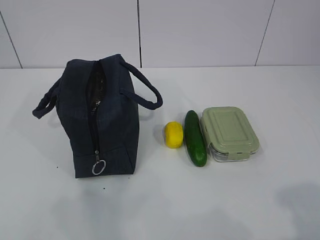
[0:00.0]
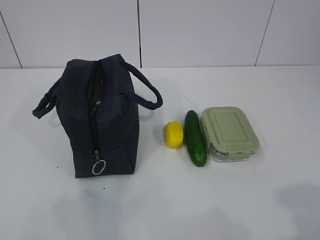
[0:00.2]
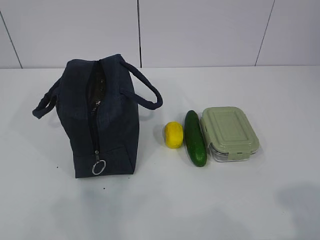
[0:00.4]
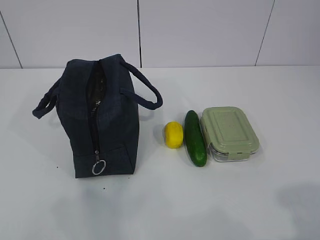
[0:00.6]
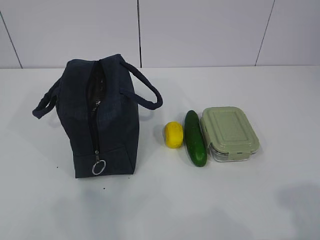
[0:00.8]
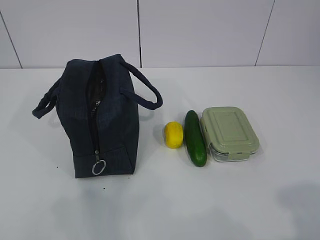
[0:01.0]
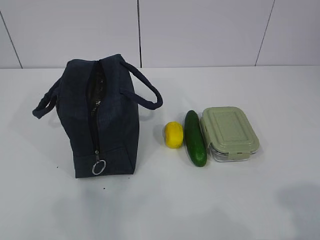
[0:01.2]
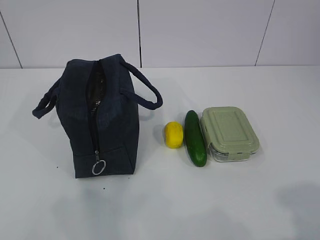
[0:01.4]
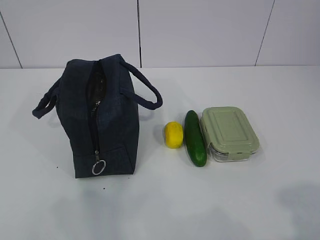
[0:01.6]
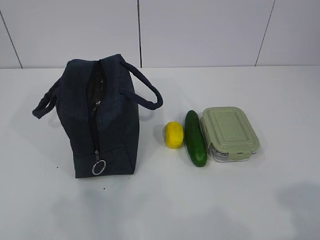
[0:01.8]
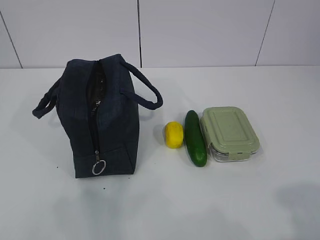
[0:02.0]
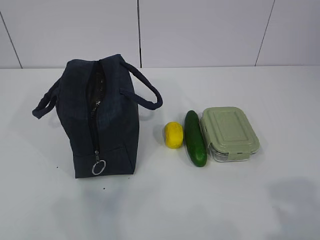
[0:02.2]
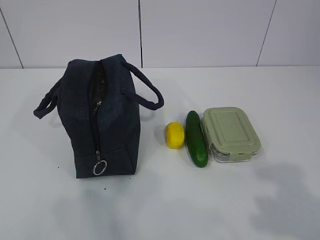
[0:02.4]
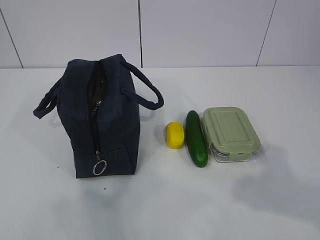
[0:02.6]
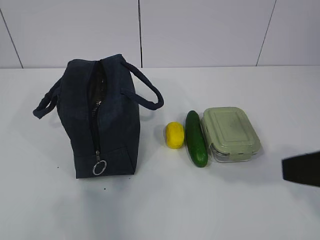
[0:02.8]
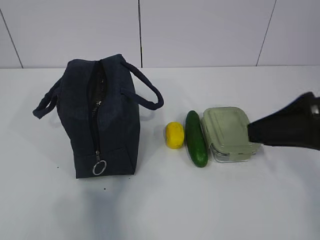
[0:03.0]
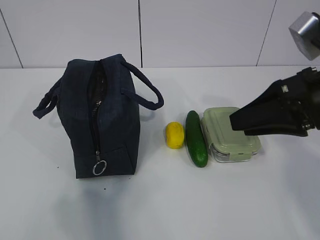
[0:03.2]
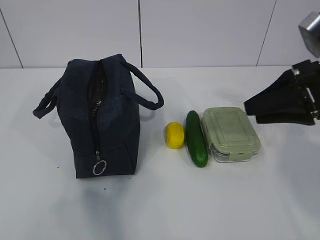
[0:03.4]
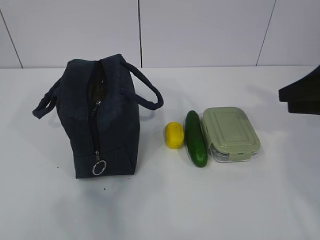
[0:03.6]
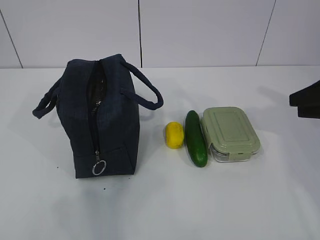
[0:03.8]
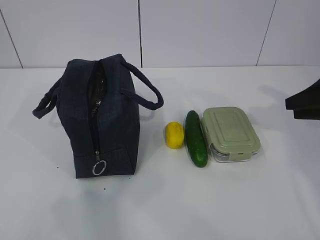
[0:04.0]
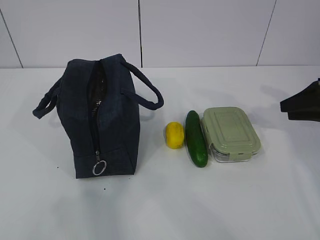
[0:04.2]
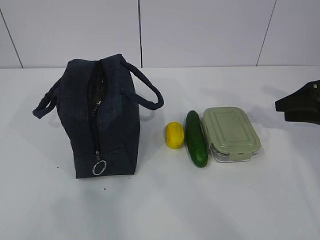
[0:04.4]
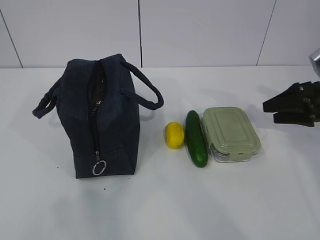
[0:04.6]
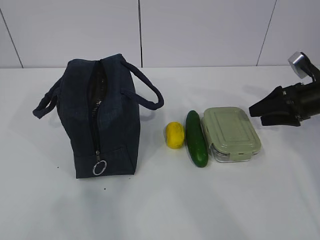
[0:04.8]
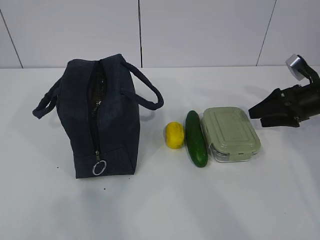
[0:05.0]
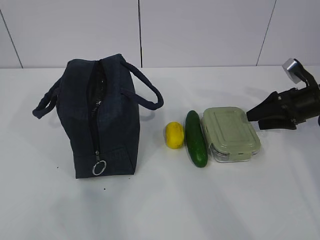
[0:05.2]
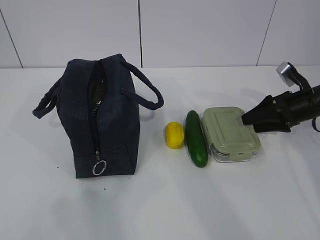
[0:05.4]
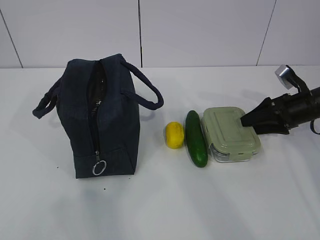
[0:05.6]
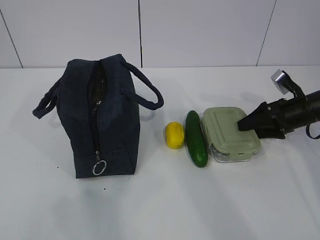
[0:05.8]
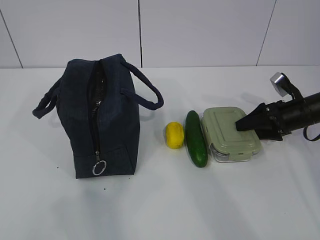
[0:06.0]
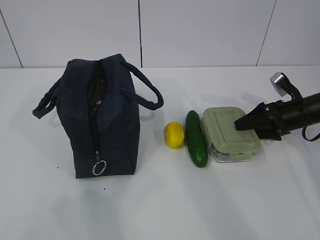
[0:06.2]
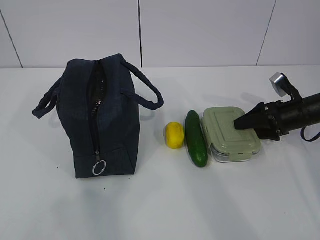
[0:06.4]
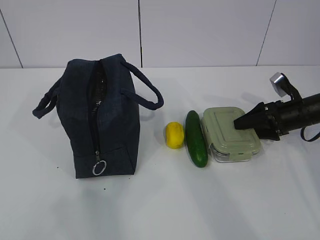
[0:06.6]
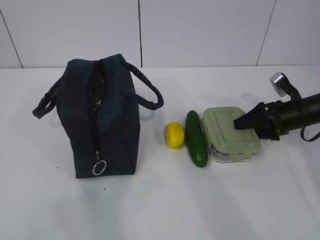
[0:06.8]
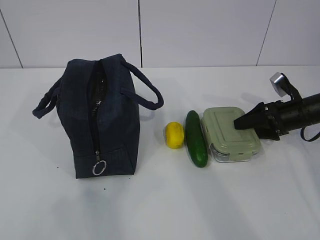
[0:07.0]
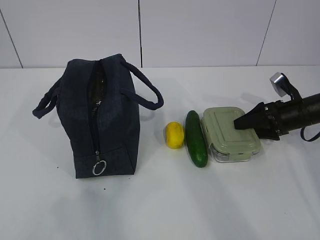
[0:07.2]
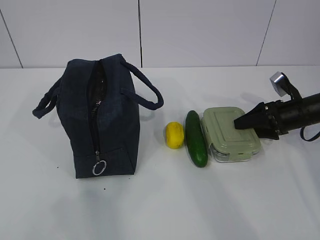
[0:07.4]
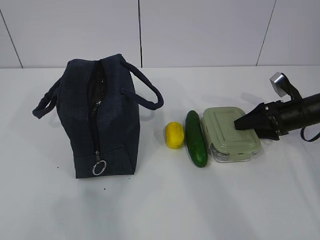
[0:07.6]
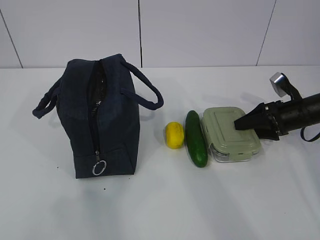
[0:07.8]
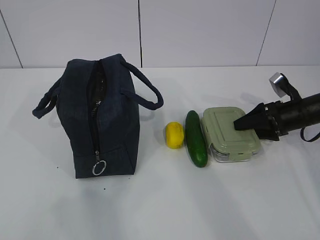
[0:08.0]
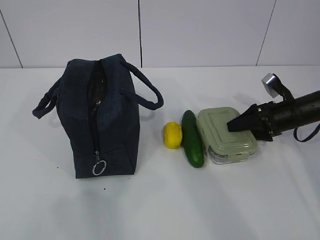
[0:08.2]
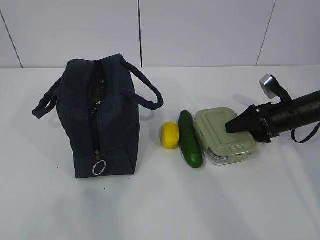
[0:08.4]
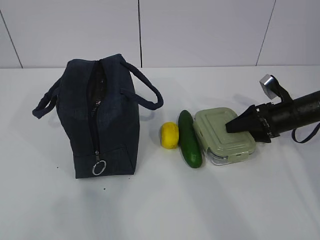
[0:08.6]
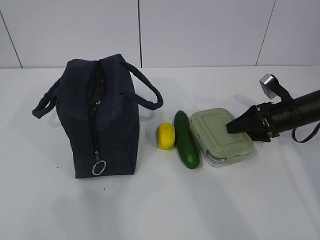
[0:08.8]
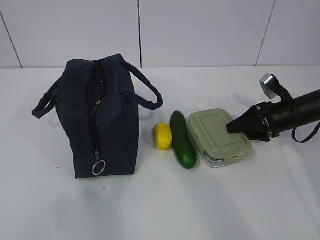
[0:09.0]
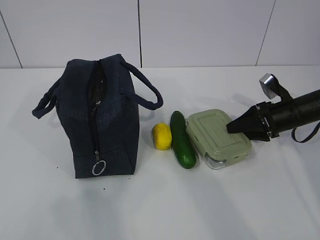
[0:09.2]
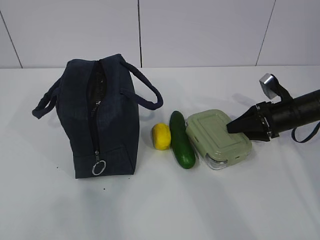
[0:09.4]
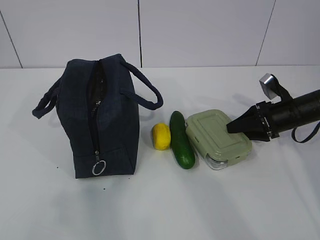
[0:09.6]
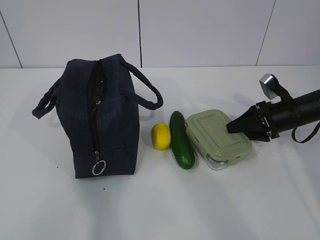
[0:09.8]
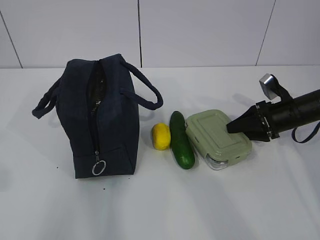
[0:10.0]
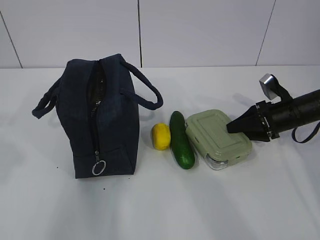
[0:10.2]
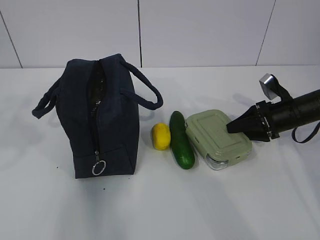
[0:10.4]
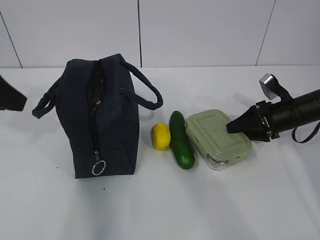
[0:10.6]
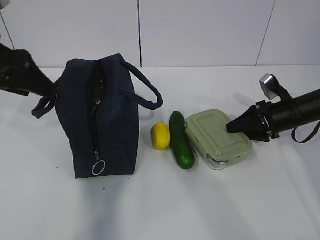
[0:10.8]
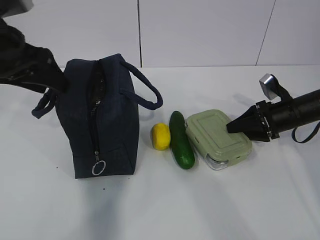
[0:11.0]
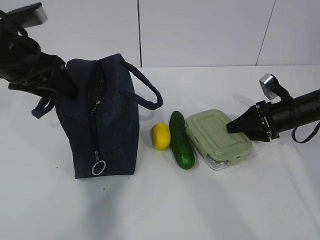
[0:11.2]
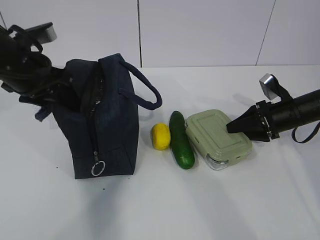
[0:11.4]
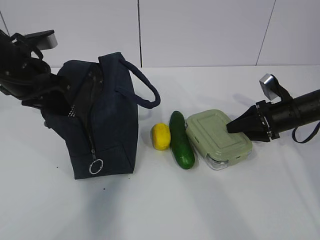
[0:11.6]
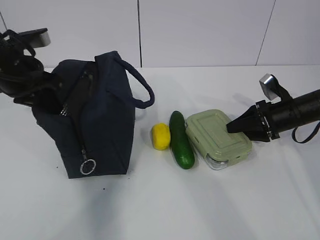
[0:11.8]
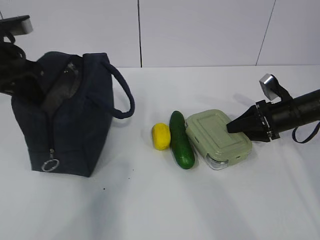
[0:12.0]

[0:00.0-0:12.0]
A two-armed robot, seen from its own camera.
Step, 0:00.0 to 0:07.2: Grab the lunch box with your right hand.
0:01.6 to 0:03.0: The right gripper shifts roughly 20 cm forward.
0:03.0 to 0:04.4: The right gripper heads forward, to the right and downward, covering approximately 25 cm.
0:04.4 to 0:06.0: The right gripper moves downward, some 10 cm.
0:06.0 to 0:07.6: The two grippers keep their place.
0:07.6 to 0:09.0: The grippers stay close to where they were, moving slightly.
0:09.0 to 0:10.4: The left gripper is displaced forward by approximately 20 cm.
0:10.4 to 0:12.0: The left gripper shifts some 15 cm forward, and closes its fingers.

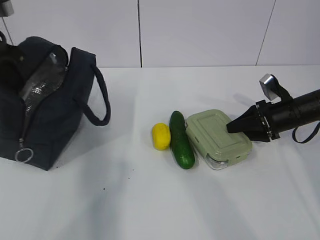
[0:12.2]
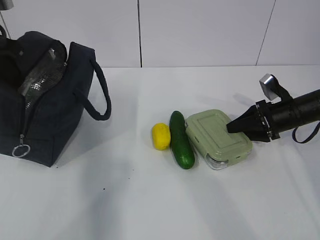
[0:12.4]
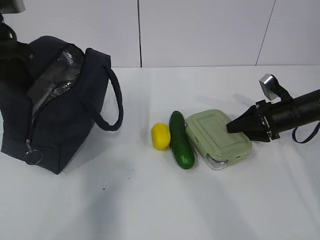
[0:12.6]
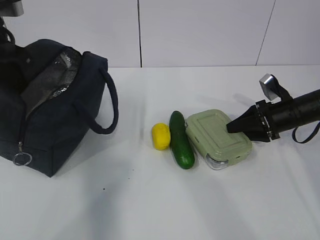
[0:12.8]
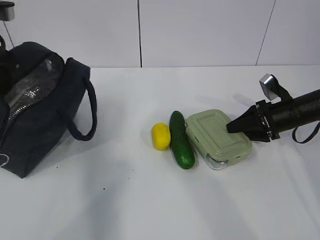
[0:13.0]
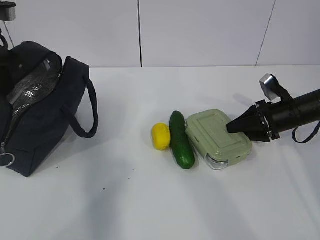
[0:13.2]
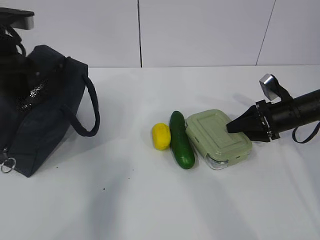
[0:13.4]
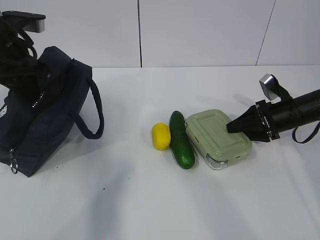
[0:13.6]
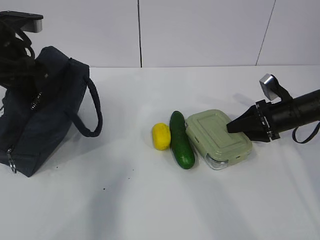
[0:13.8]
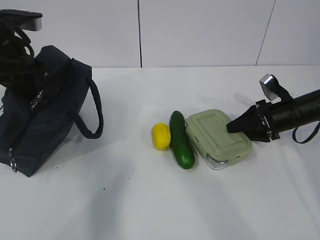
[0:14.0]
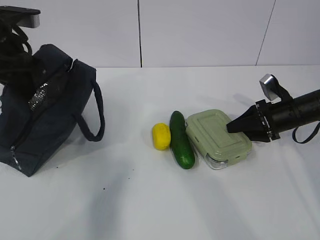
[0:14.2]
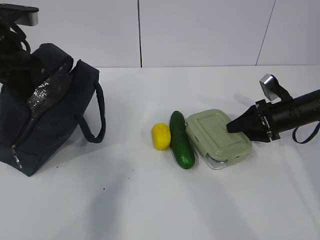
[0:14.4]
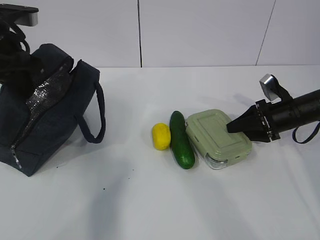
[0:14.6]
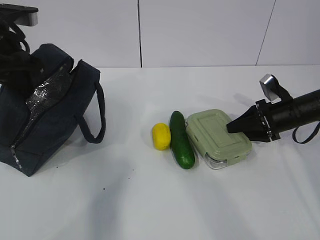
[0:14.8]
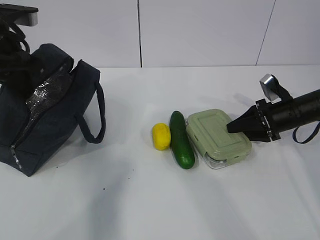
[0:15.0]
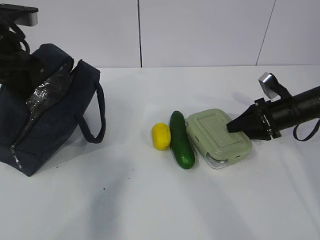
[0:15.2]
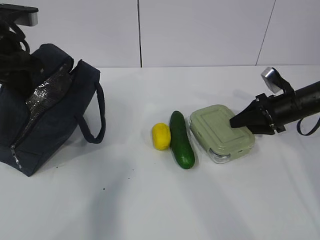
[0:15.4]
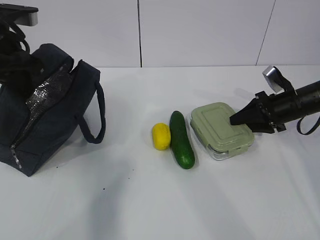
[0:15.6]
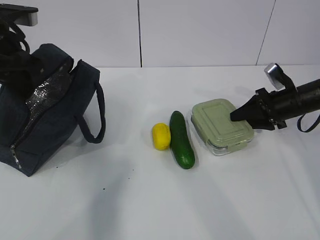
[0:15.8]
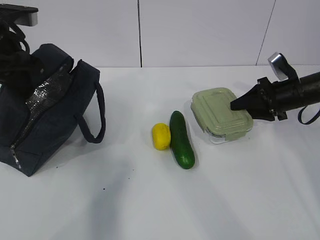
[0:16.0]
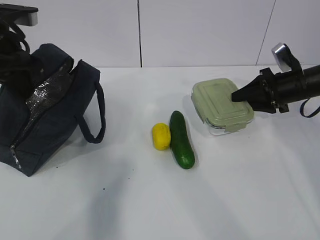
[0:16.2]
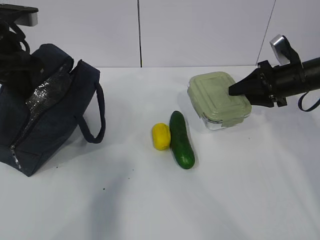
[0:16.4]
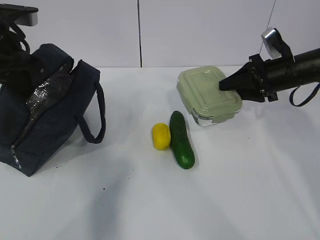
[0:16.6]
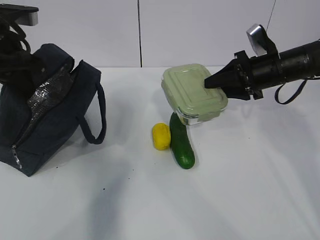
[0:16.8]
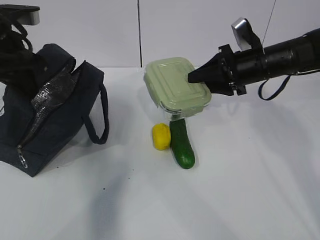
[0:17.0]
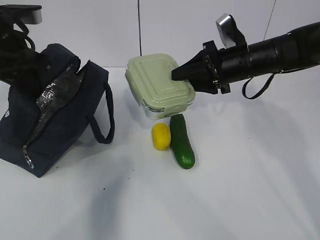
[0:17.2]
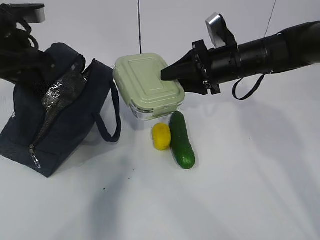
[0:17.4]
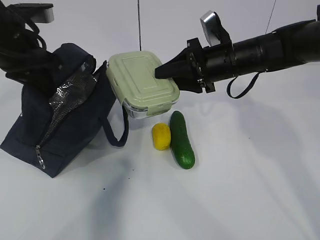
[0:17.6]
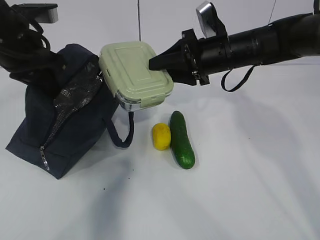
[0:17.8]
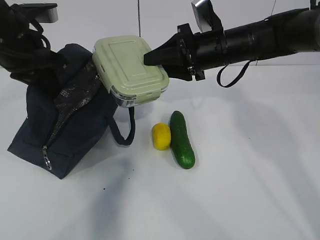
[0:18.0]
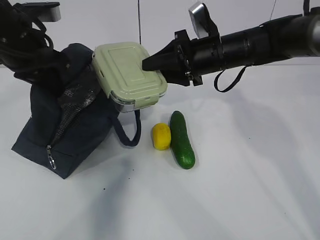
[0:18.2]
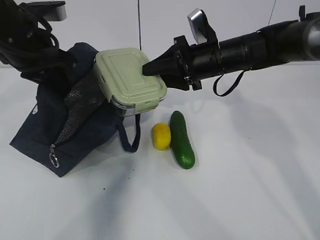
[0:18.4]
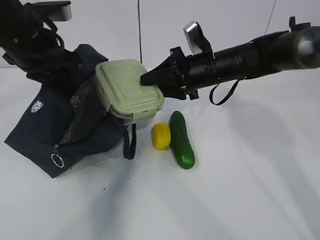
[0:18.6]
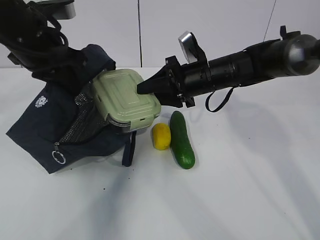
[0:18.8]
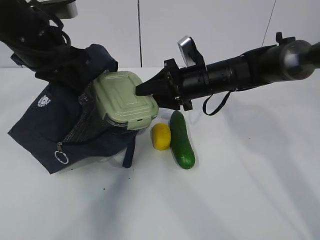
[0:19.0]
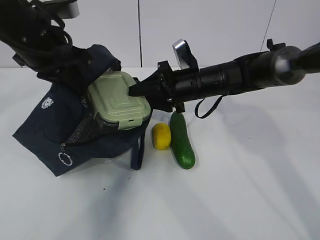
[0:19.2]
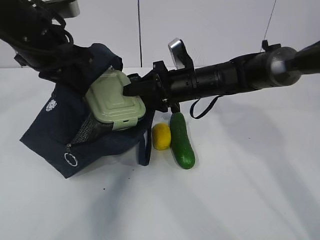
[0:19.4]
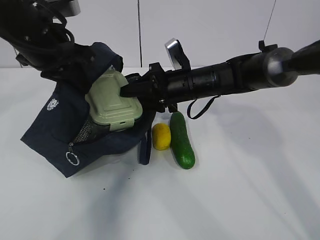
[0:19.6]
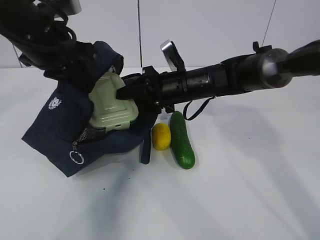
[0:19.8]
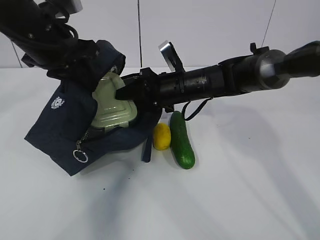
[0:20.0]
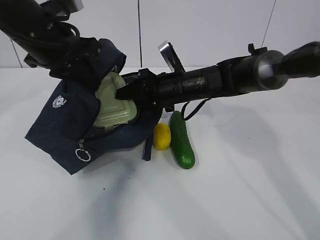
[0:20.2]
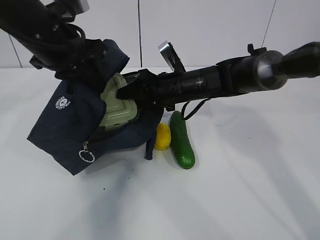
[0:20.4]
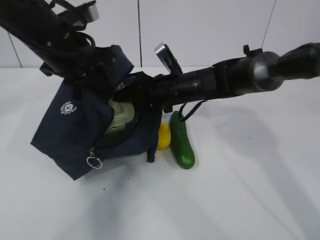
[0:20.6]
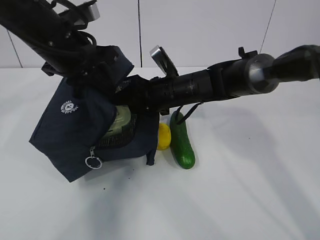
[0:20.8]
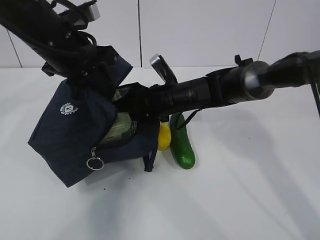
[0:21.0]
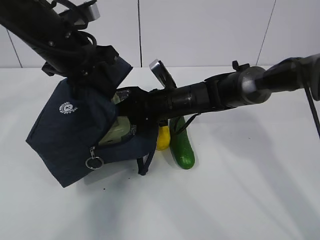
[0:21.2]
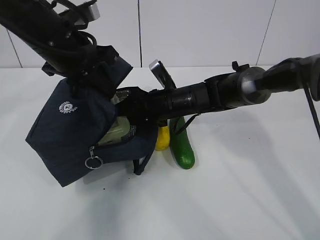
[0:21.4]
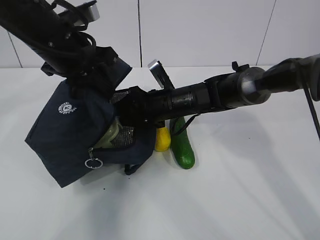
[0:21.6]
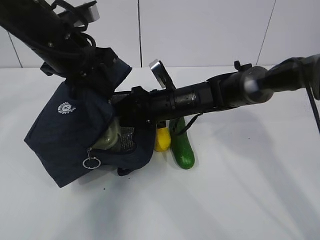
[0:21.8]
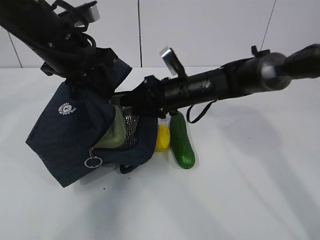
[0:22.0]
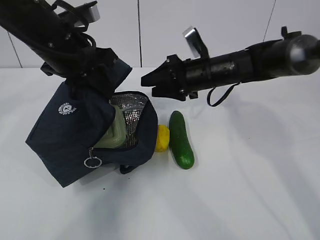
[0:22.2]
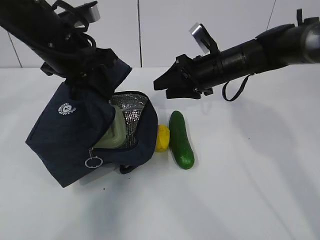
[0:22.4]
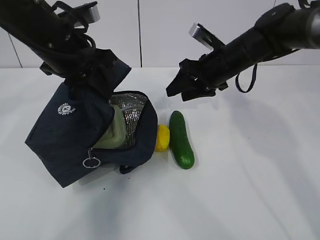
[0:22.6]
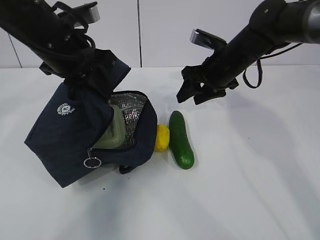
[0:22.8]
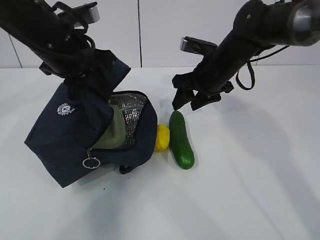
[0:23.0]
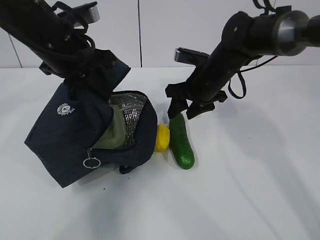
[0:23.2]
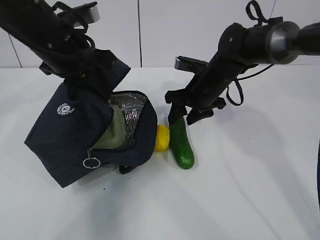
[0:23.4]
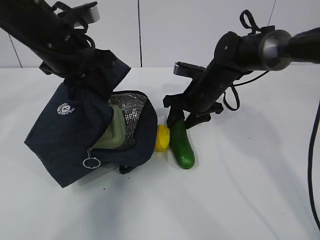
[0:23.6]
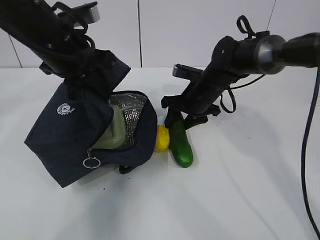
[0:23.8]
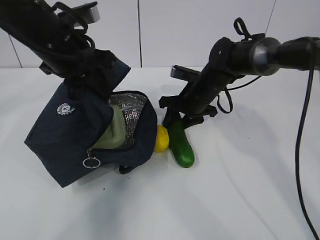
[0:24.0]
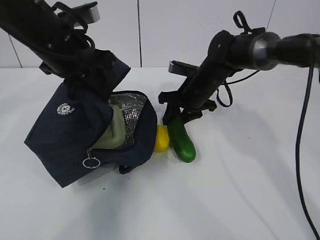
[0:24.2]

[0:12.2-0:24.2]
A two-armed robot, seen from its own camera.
Step, 0:12.2 to 0:15.0: Grab the lunch bag with your left hand.
Step, 0:15.2 to 0:18.2: Place it into the bag with your right hand.
Step, 0:18.4 to 0:20.0: Grab the cucumber with your right hand.
Step, 0:20.2 to 0:22.8: Place it into the bag with your right hand.
0:12.2 to 0:13.8: There are only small adjustments of the grippers.
0:13.8 to 0:15.2: Neither gripper changes place.
0:15.2 to 0:16.6: The right gripper goes roughly 10 cm upward.
0:16.6 to 0:18.2: The right gripper heads to the left, covering some 15 cm.
0:18.2 to 0:19.8: The right gripper moves downward and to the left, about 10 cm.
0:19.8 to 0:21.2: The grippers move only a little.
0:21.2 to 0:22.6: The right gripper is displaced to the right and upward by approximately 15 cm.
0:22.6 to 0:24.2: The right gripper travels downward by about 5 cm.
